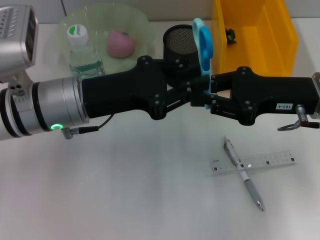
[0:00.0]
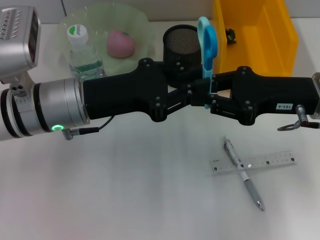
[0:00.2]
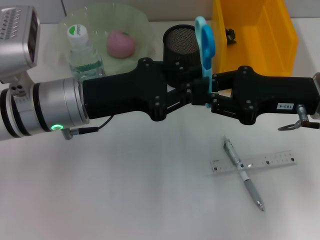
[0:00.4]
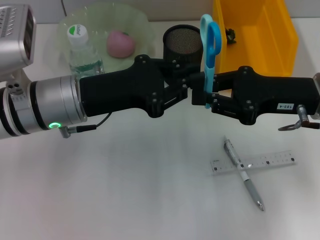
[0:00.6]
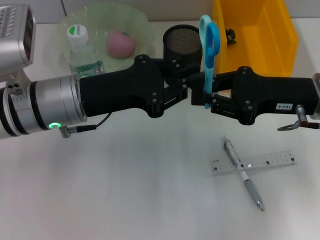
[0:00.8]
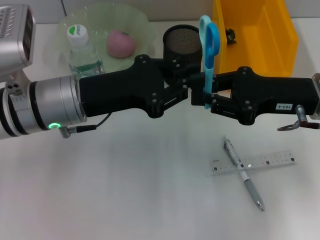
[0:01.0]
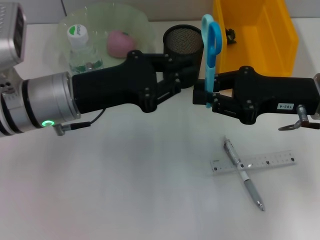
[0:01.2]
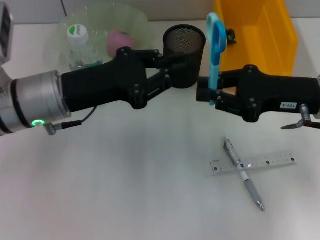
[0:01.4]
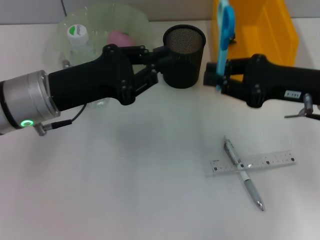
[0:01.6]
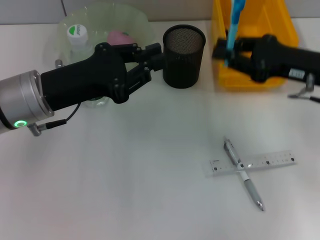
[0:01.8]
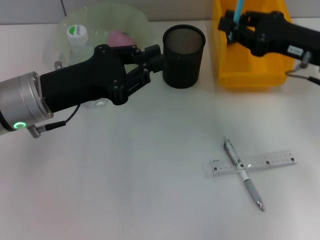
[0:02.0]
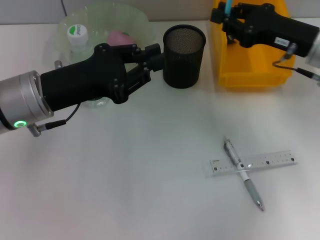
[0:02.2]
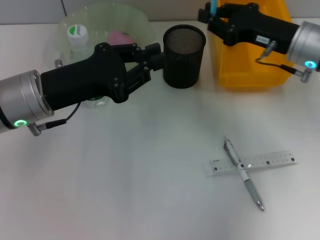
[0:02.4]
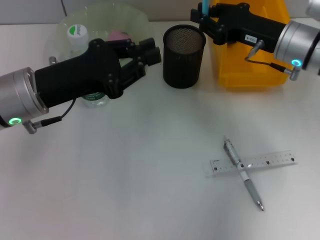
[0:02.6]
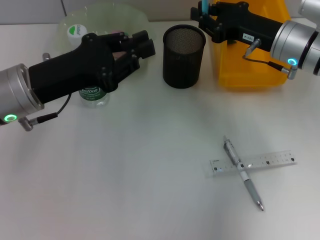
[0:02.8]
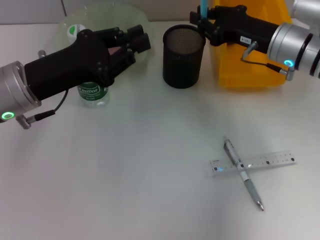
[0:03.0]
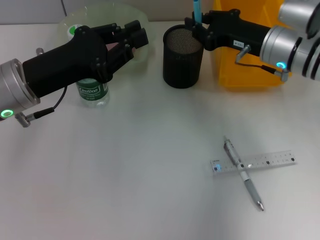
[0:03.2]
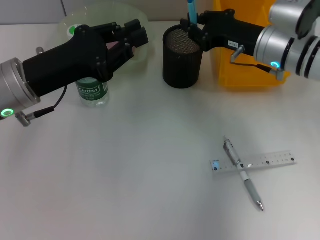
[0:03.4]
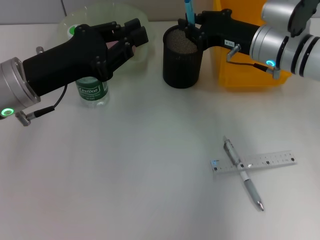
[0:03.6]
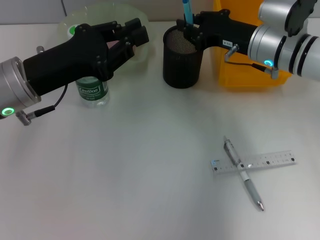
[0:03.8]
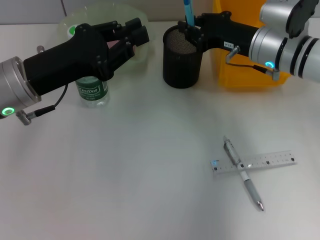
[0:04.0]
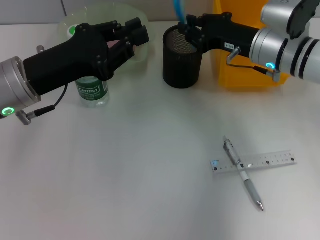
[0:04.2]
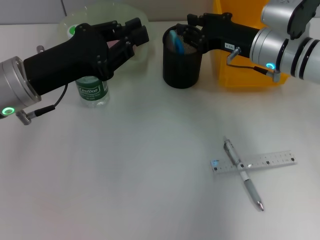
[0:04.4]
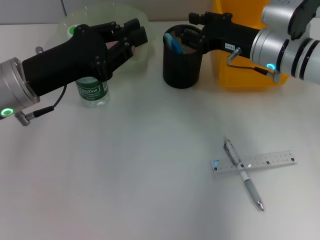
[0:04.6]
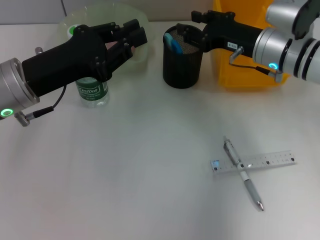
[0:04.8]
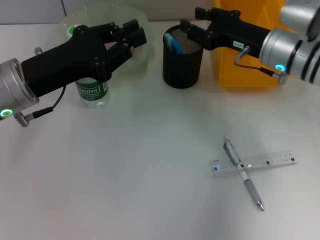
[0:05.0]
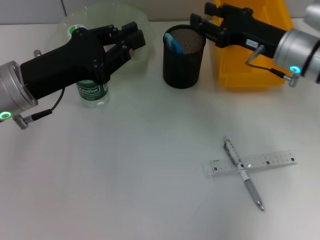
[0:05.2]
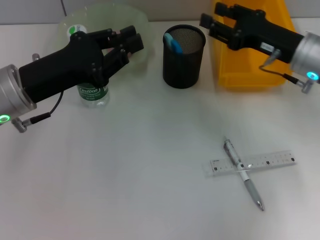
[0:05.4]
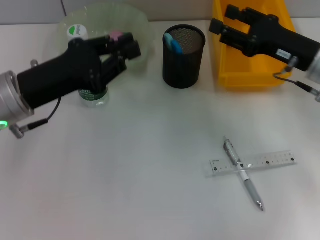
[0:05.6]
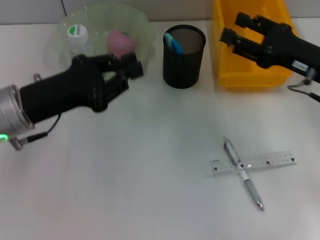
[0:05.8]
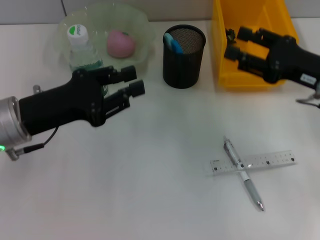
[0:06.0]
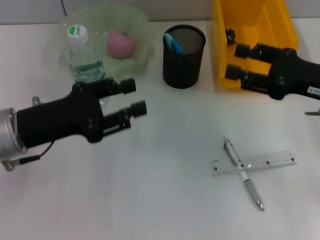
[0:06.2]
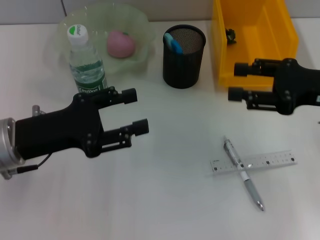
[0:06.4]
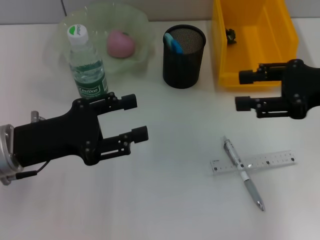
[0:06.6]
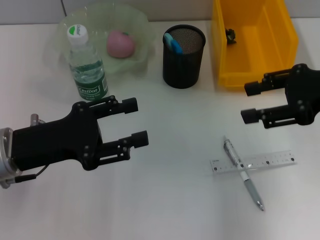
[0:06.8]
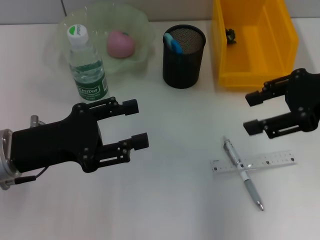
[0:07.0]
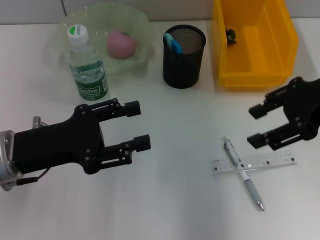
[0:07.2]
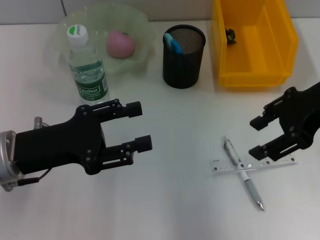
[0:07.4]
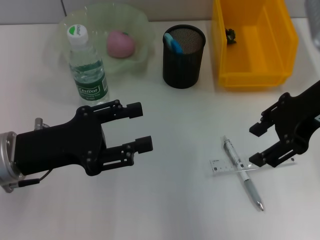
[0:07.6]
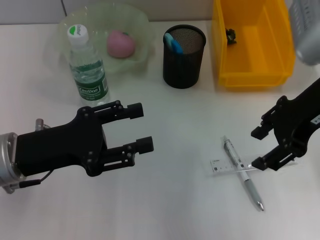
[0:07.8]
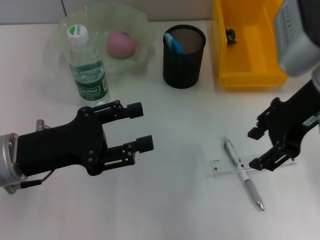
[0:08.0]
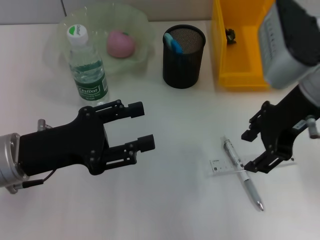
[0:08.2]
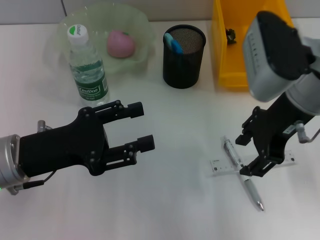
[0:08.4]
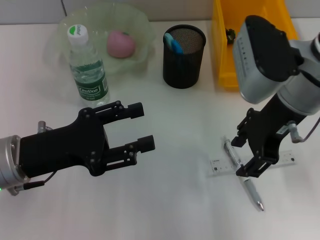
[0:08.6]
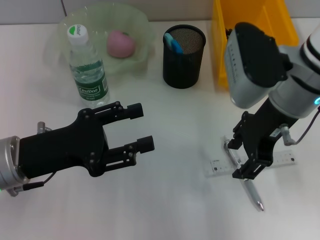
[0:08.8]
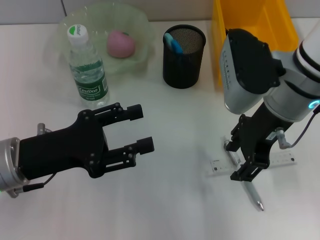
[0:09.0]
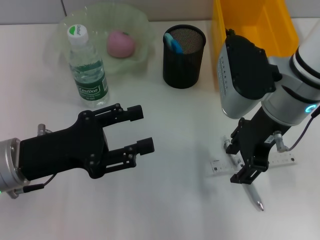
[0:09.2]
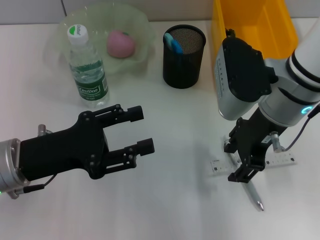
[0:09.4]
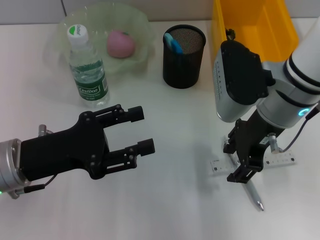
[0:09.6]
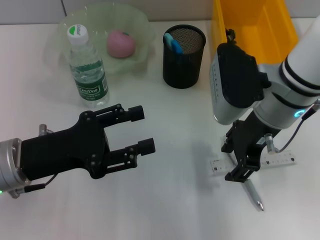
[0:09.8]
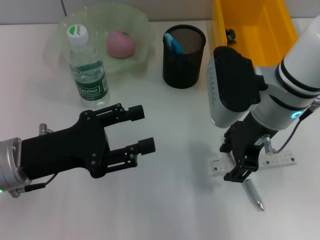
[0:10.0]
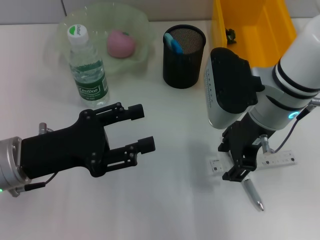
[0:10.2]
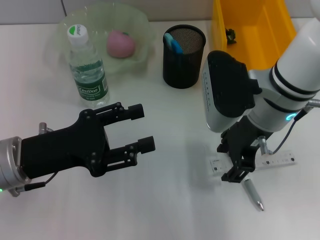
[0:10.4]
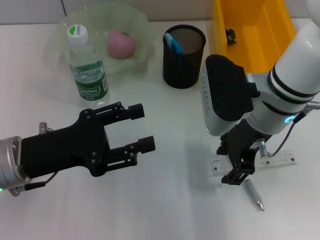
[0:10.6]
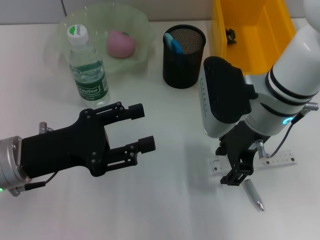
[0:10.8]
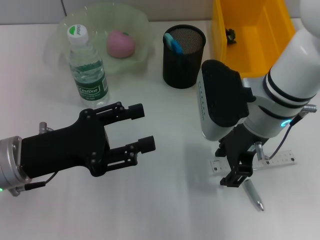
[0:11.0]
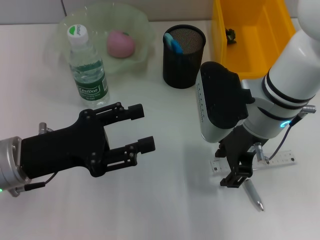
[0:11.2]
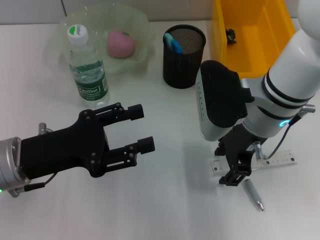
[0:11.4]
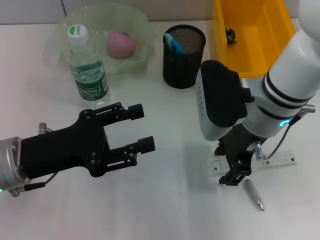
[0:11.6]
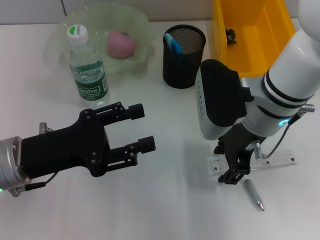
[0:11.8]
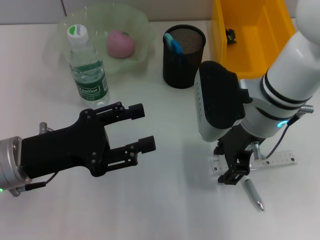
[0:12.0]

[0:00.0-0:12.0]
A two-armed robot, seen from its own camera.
Step, 0:01.2 to 0:05.0: Place the blue scissors into the pen holder with the right hand.
0:01.6 to 0:03.0: The right gripper is displaced forward by about 10 cm.
0:03.0 to 0:04.4: There are only small adjustments of the grippers.
0:04.4 to 0:06.0: The right gripper moves backward and to the right, about 15 cm, and opens its fingers.
0:06.0 to 0:07.6: The right gripper is displaced upward and to the left by about 15 cm, while the left gripper opens.
0:07.6 to 0:09.0: The right gripper heads to the left and downward, covering roughly 10 cm.
0:09.0 to 0:10.4: The grippers stay close to where they were, moving slightly.
0:10.4 to 0:12.0: Both grippers stay about where they are.

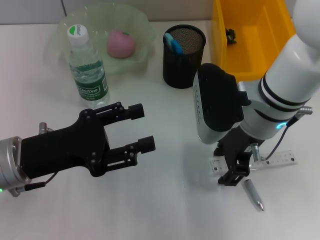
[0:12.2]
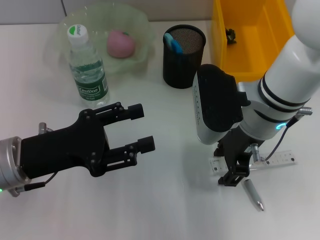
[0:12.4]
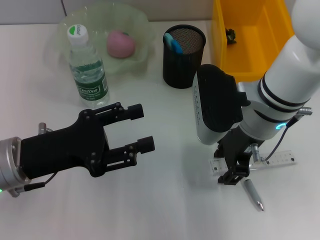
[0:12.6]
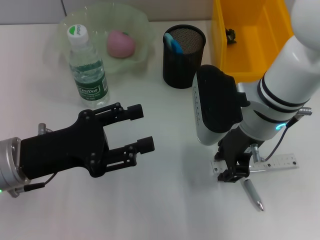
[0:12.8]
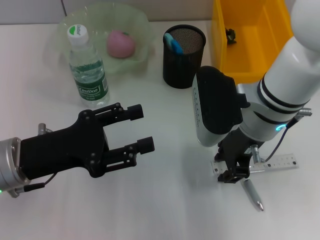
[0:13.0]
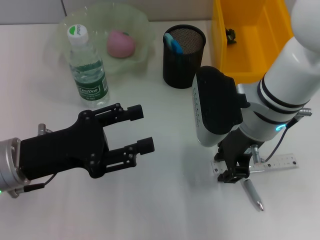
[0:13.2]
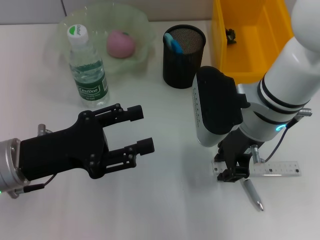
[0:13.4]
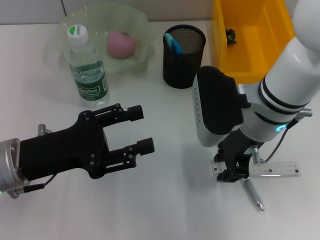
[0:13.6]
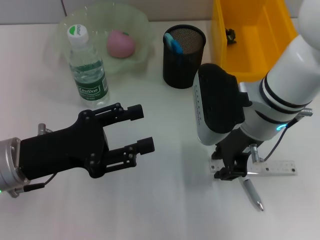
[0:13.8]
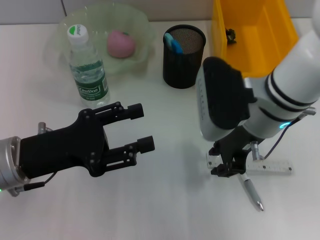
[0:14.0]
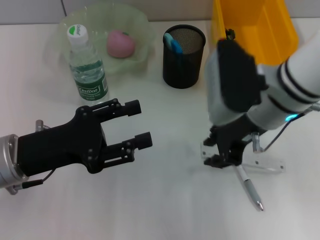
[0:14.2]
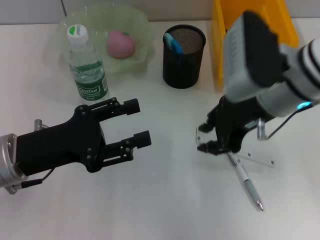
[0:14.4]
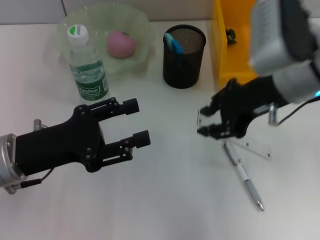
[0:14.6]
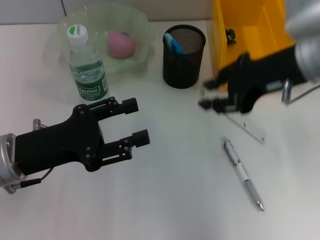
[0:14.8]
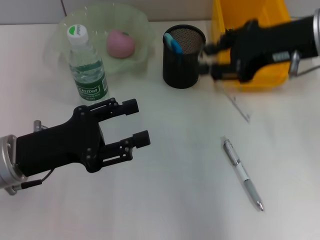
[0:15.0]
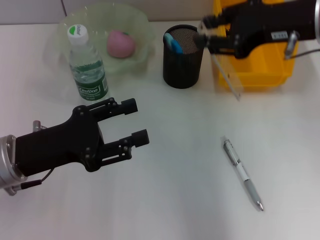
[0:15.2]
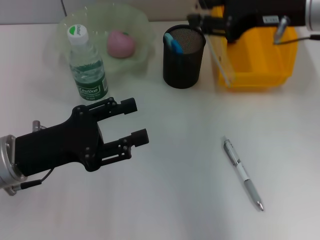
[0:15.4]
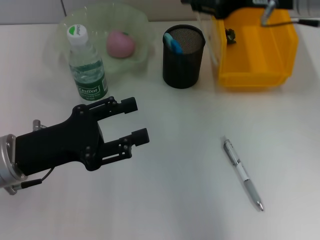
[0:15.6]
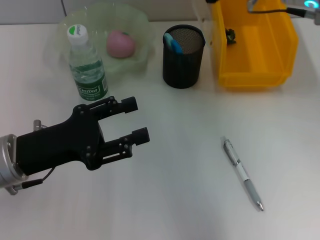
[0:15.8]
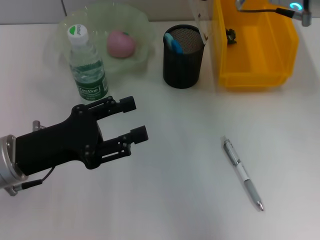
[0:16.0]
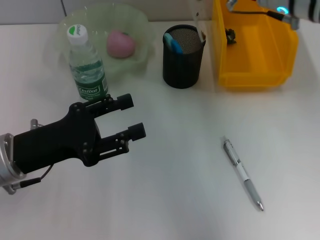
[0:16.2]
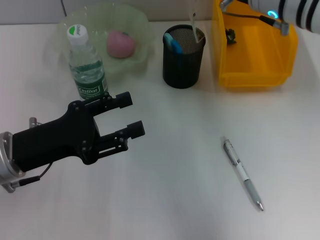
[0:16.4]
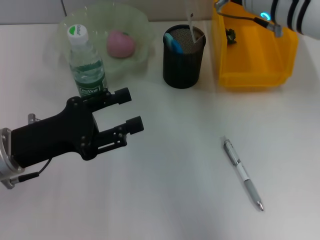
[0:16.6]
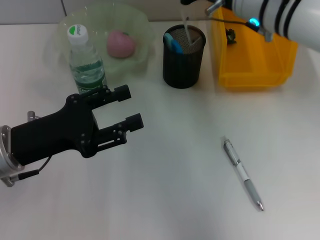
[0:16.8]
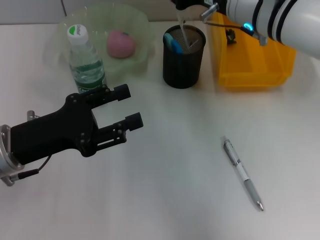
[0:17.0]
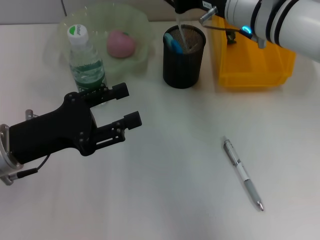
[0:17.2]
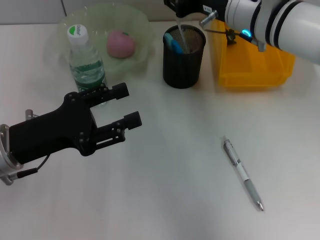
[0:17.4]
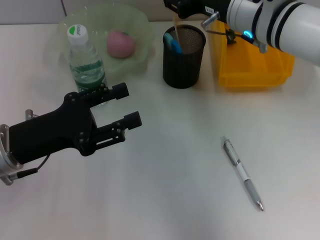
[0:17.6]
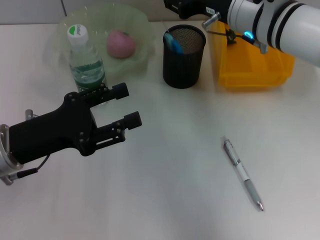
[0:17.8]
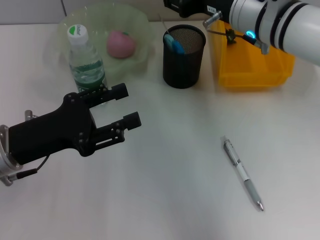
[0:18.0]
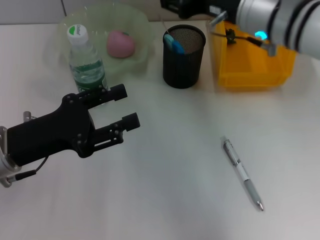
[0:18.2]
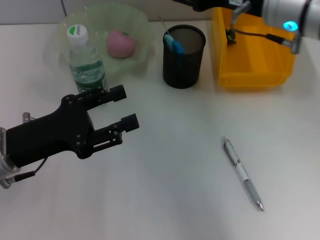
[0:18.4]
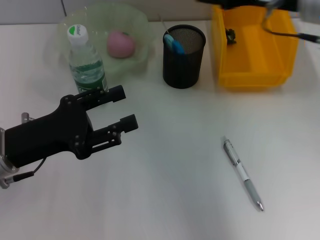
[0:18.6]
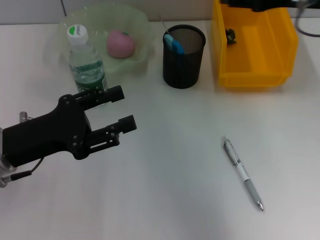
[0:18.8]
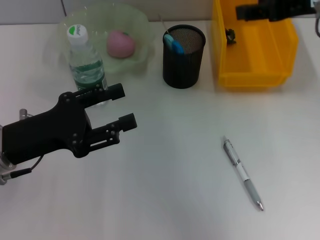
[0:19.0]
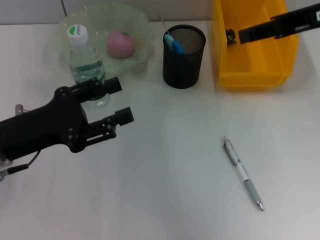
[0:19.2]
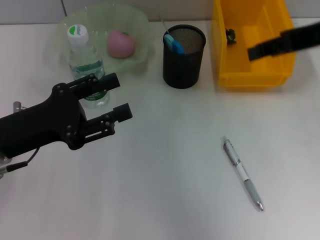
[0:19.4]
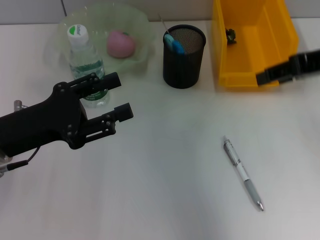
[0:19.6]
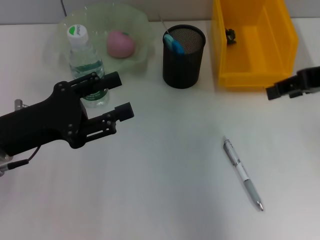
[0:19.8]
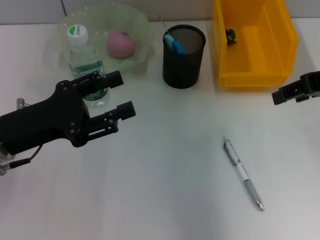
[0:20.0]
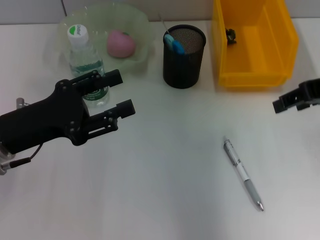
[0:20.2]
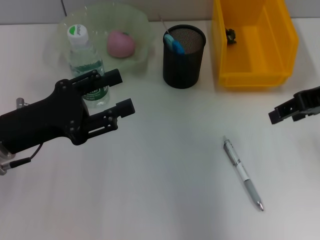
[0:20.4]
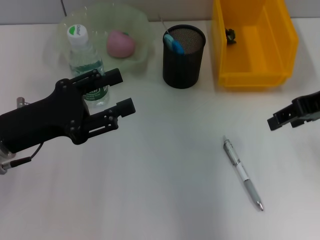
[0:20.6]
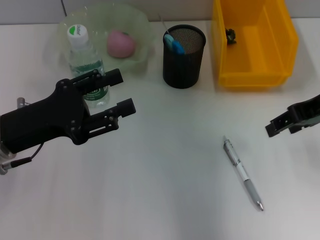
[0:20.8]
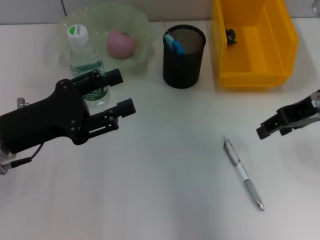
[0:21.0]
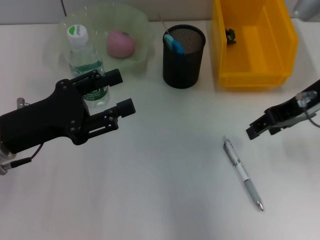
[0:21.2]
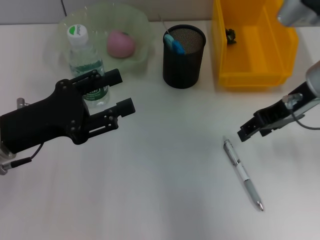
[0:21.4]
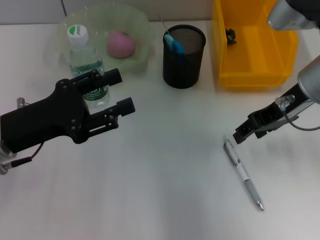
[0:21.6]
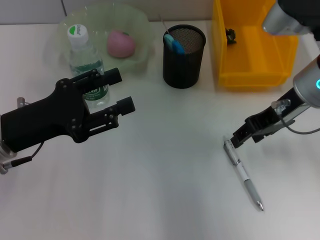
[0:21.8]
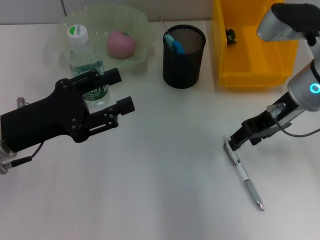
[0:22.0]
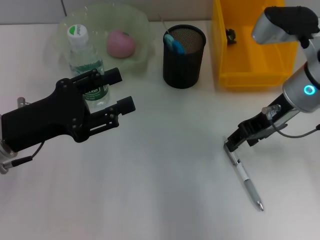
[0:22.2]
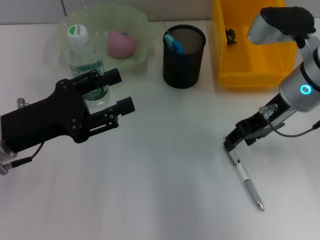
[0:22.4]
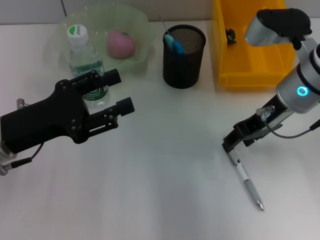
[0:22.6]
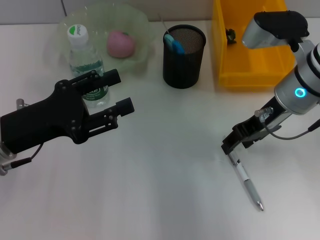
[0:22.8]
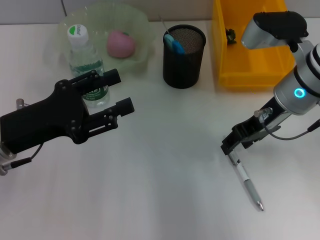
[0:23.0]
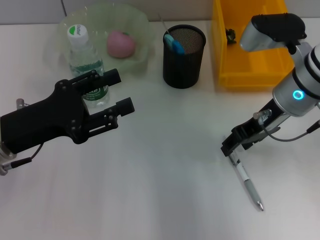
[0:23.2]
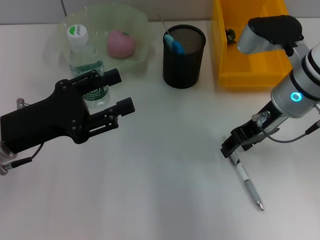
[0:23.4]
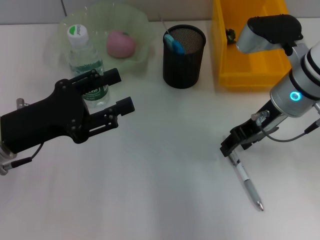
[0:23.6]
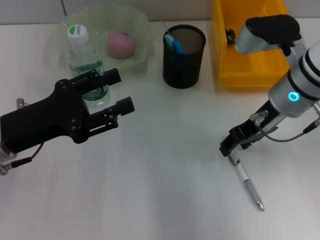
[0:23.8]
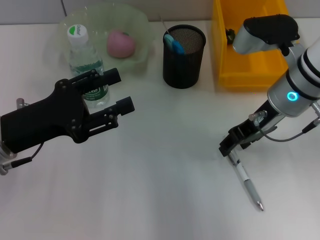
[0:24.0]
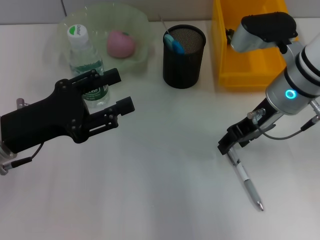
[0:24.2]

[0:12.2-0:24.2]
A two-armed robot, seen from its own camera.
Step, 0:13.6 to 0:18.0: Place the ruler into the pen holder with the right hand.
0:12.2 to 0:13.8: The right gripper closes up.
0:13.8 to 0:15.2: The right gripper moves upward and to the right, roughly 15 cm.
0:15.2 to 0:16.6: The right gripper is displaced to the left by about 5 cm.
0:16.6 to 0:18.2: The grippers make only small movements.
0:18.2 to 0:19.8: The right gripper moves to the right and backward, roughly 15 cm.
0:19.8 to 0:21.2: The right gripper travels downward by some 5 cm.
0:21.2 to 0:22.6: The right gripper changes place by approximately 5 cm.
0:22.6 to 0:24.2: Both grippers stay about where they are.
